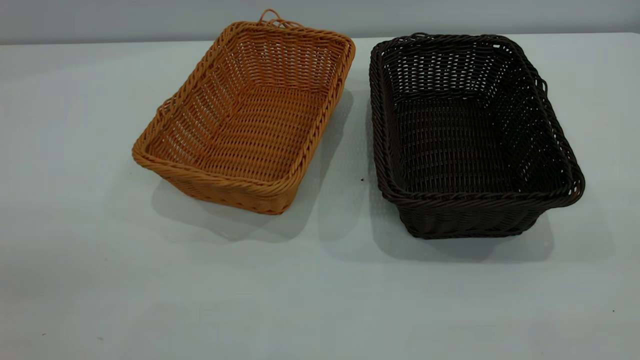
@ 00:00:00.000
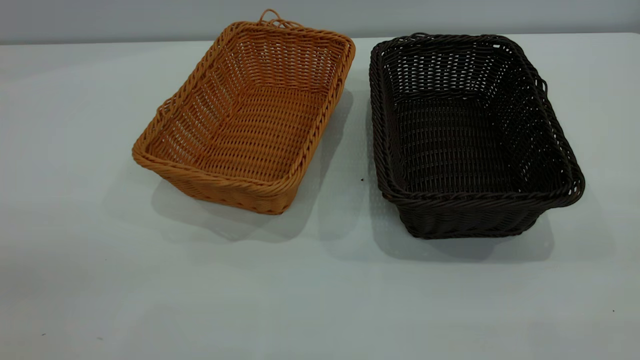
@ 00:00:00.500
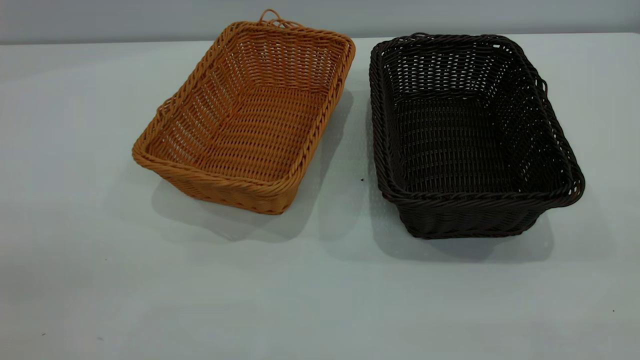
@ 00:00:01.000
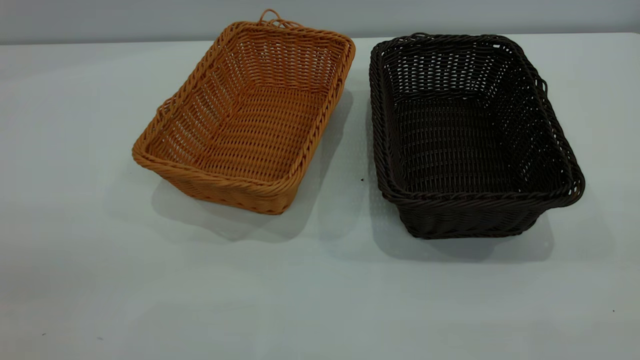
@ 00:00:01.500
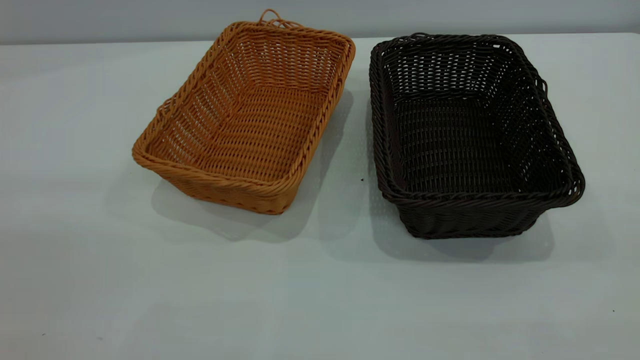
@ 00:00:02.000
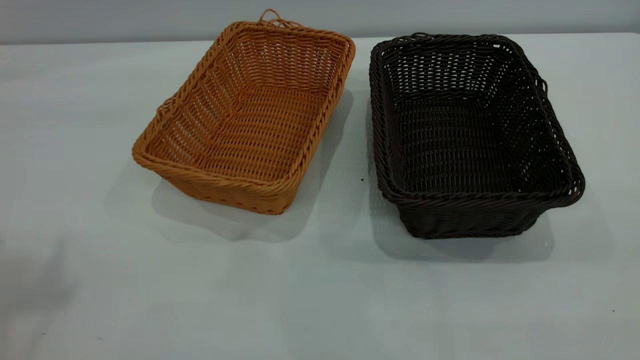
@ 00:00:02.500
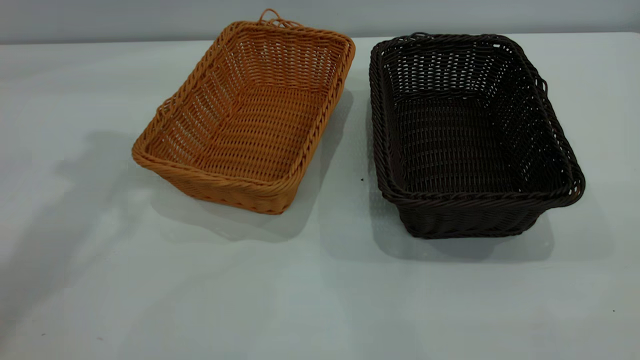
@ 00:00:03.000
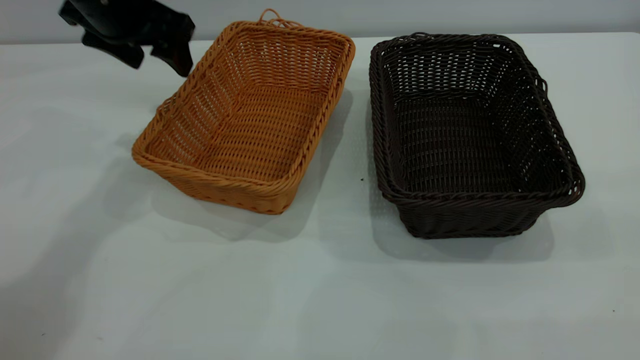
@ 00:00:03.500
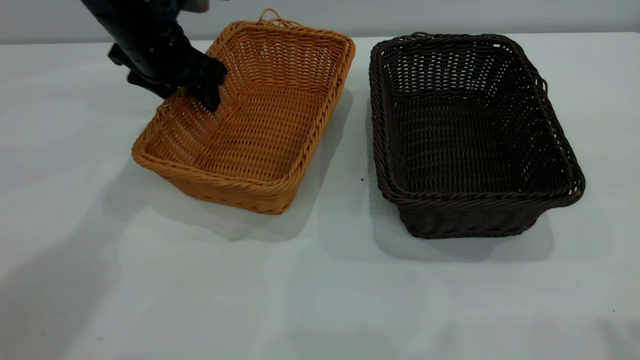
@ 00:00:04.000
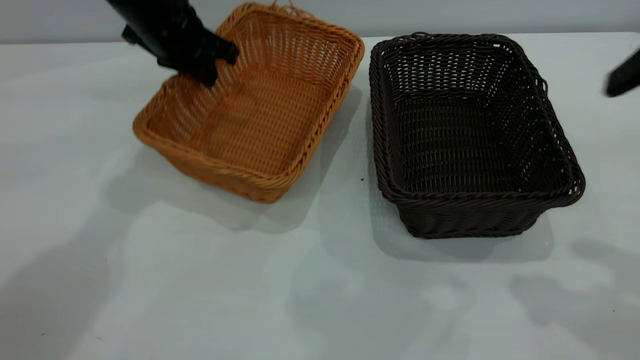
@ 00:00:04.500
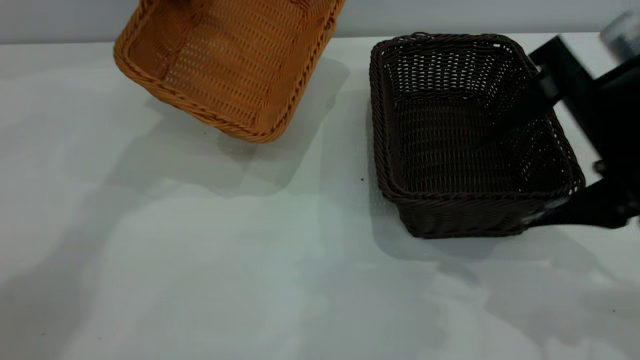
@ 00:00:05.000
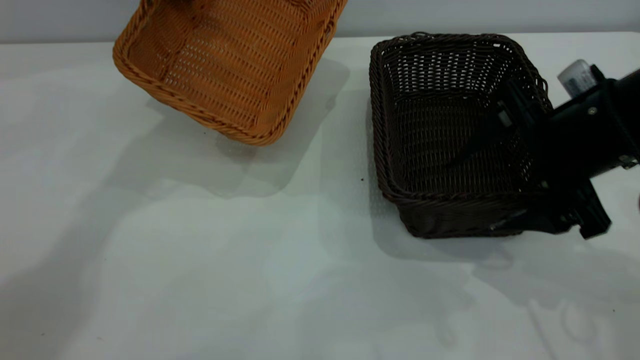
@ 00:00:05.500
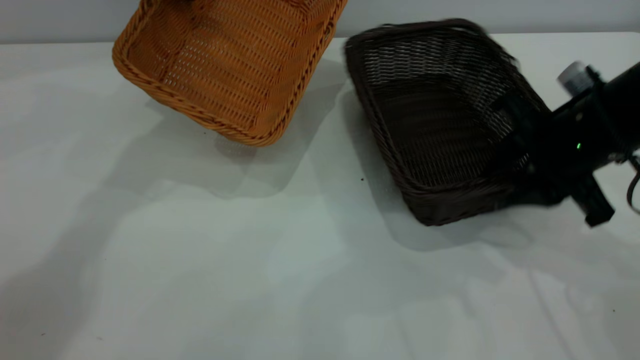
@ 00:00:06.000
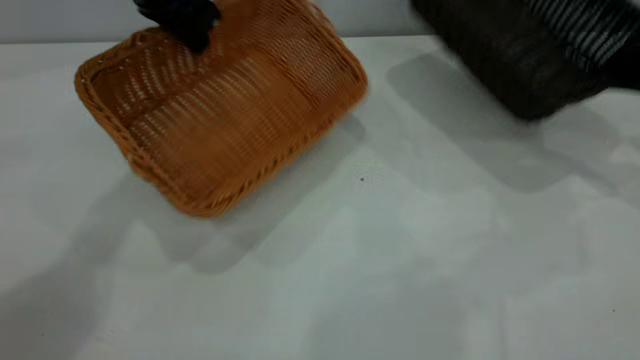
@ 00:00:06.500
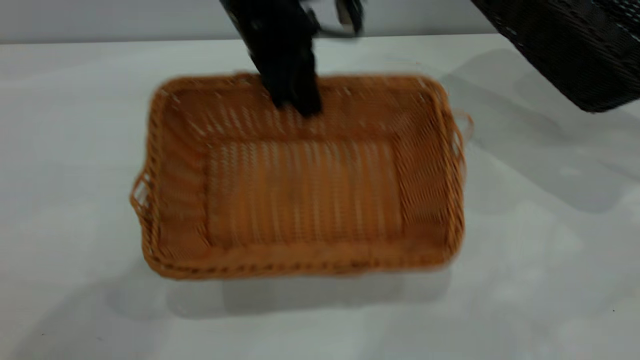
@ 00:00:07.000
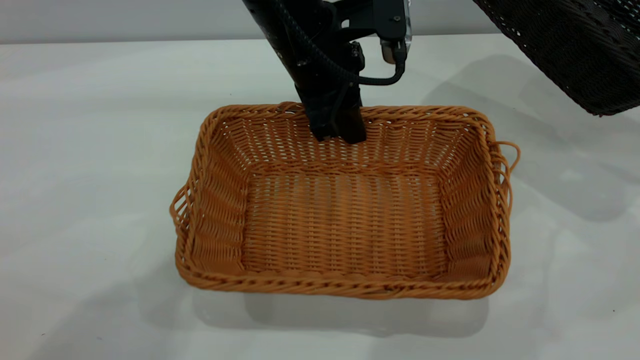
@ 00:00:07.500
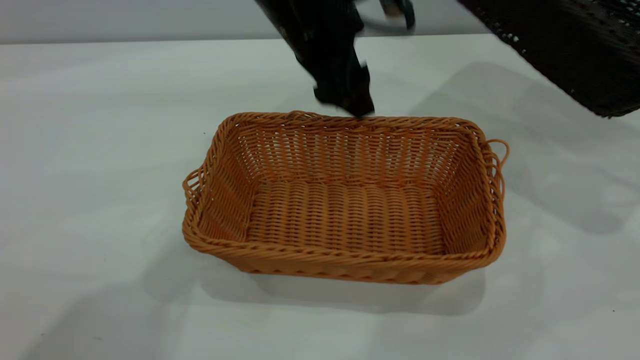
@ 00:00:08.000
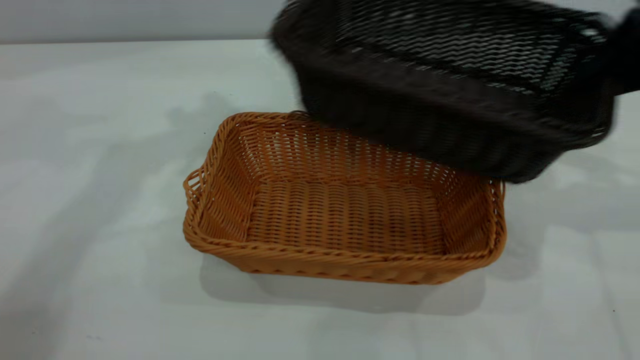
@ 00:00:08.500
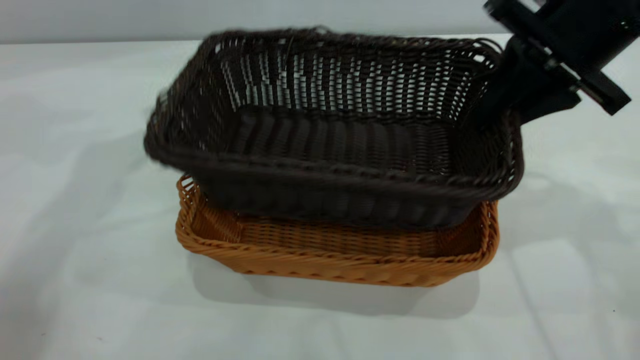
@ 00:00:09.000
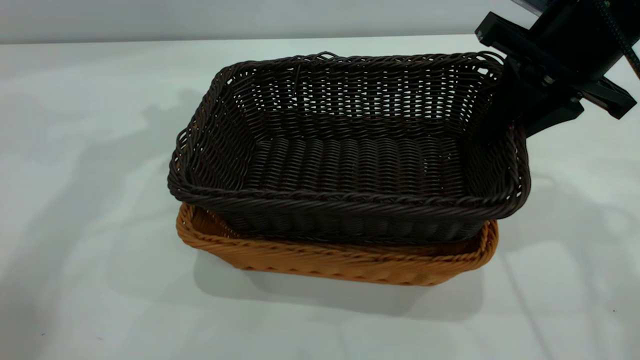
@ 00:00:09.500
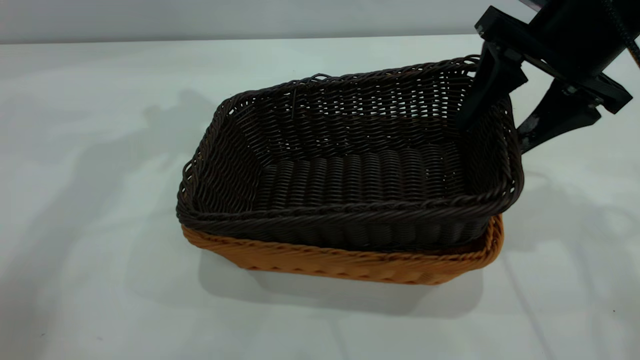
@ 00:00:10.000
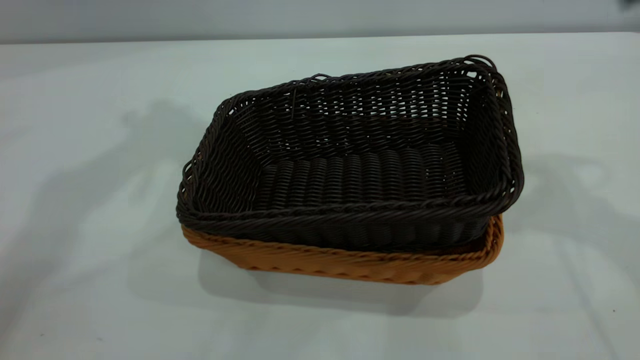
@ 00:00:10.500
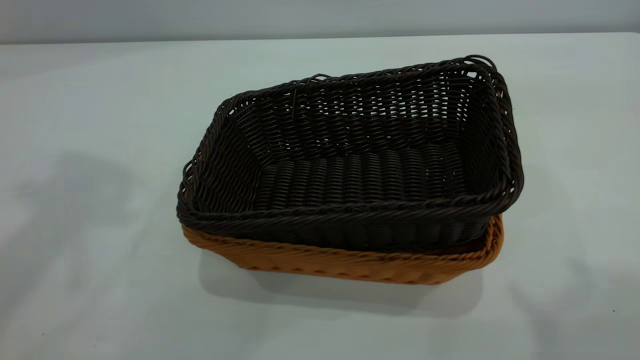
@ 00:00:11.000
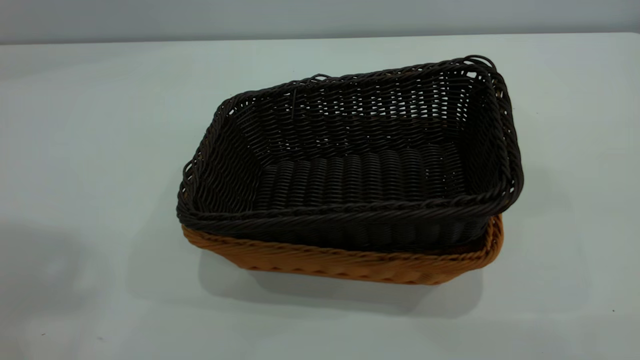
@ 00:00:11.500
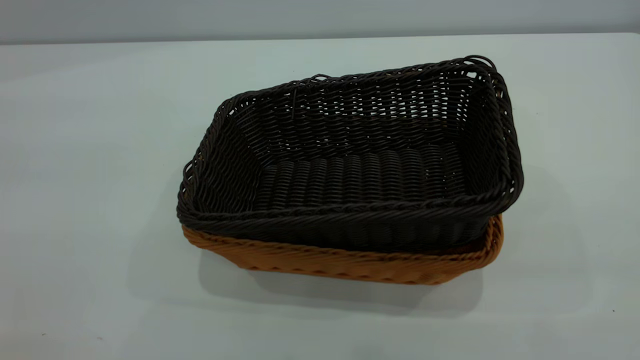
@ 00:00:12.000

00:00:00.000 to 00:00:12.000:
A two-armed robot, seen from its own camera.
Task of the whole recording: the left gripper grasp the brown basket and place it in the center of the table, the right gripper grasp the black basket and place it inside the brown one.
Step, 00:00:00.000 to 00:00:06.500: Pick up the light basket with the right gripper.
Step, 00:00:07.000 to 00:00:08.000: Place the light-colored basket in the center.
Step, 00:00:08.500 to 00:00:10.000: Place the dark basket on top of the light basket.
00:00:02.000 to 00:00:04.000: The left gripper goes about 50 cm forward and downward.
00:00:04.000 to 00:00:06.000: The left gripper goes about 10 cm upward, and closes its fingers. The right gripper travels downward and forward by about 30 cm, and closes.
00:00:06.000 to 00:00:08.000: The left gripper is displaced to the right and backward by approximately 20 cm, and opens up. The right gripper goes roughly 20 cm to the right and upward.
00:00:08.000 to 00:00:10.000: The left gripper travels to the left and upward by approximately 20 cm, while the right gripper travels to the left by roughly 25 cm, and opens up.
00:00:10.000 to 00:00:12.000: Both grippers travel together backward and upward, some 40 cm.
